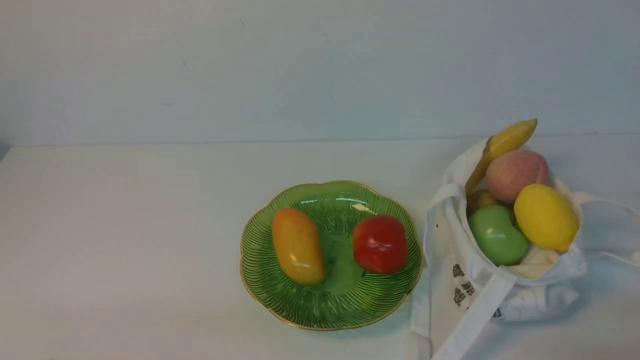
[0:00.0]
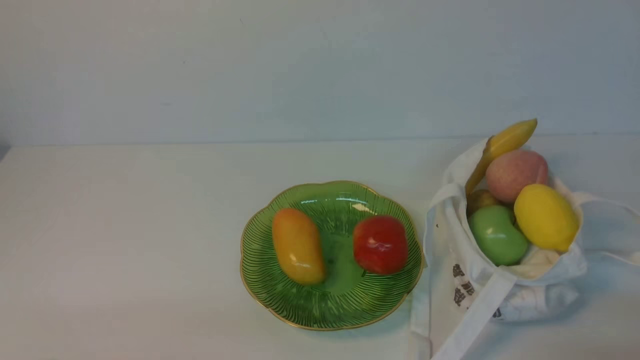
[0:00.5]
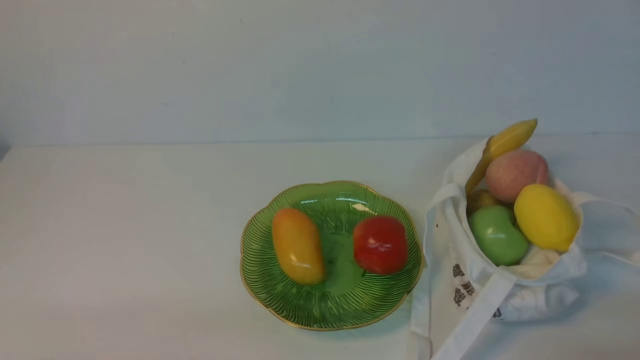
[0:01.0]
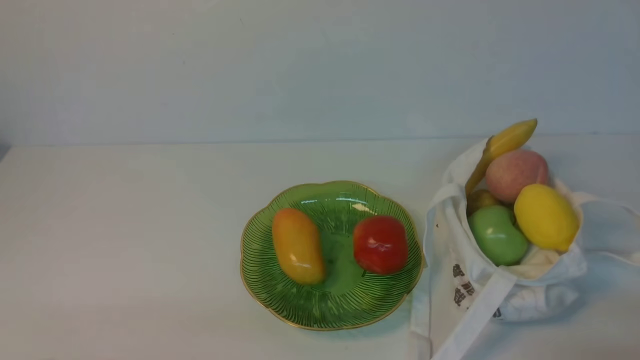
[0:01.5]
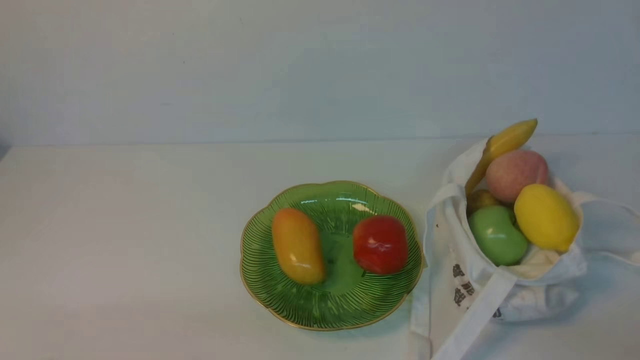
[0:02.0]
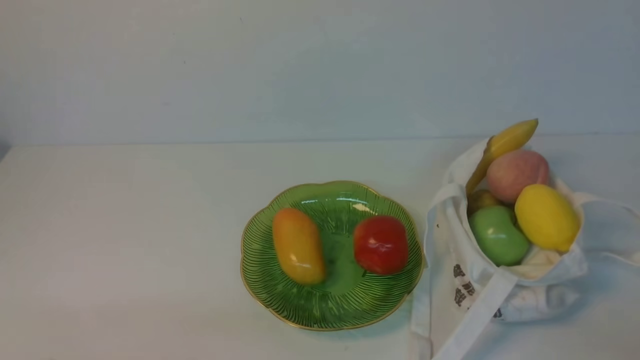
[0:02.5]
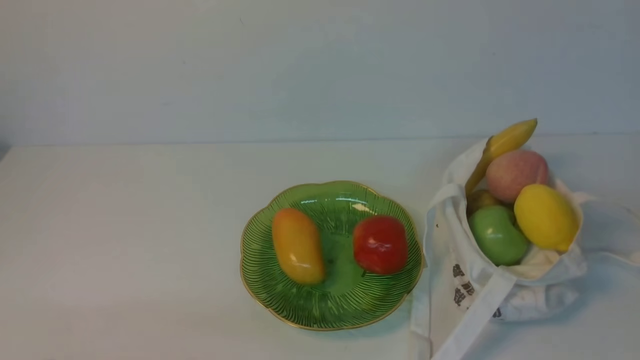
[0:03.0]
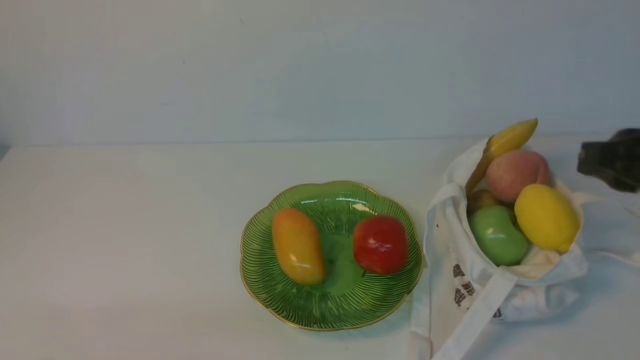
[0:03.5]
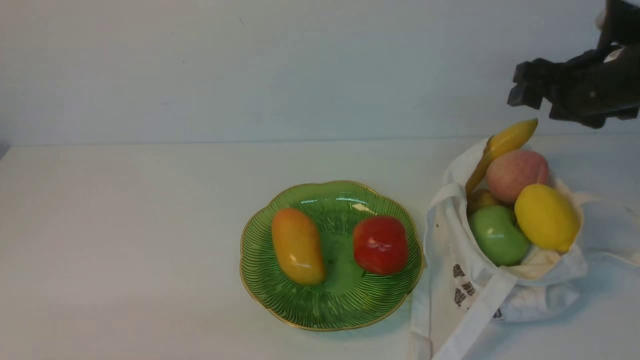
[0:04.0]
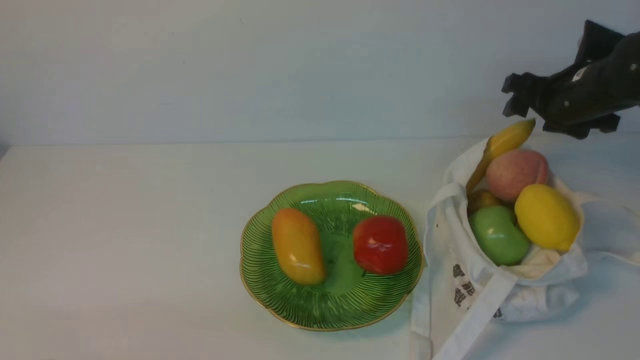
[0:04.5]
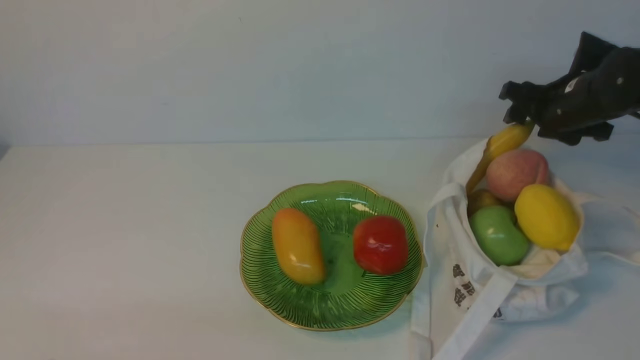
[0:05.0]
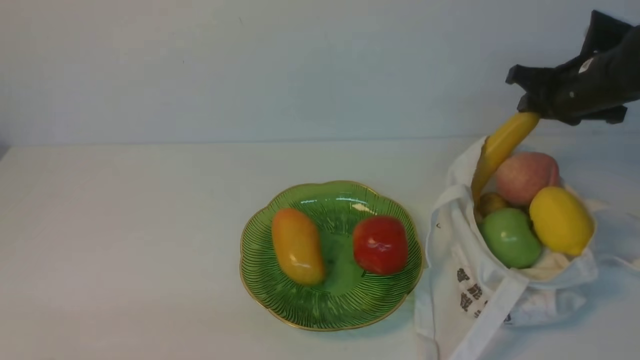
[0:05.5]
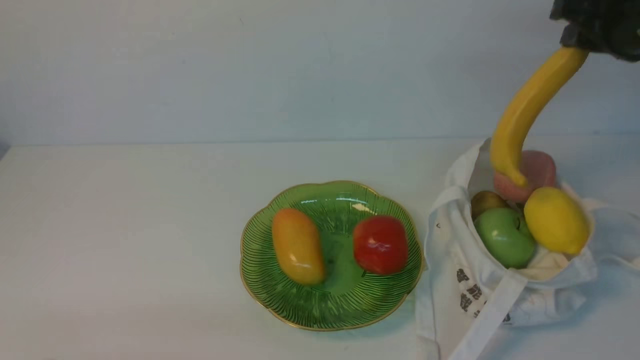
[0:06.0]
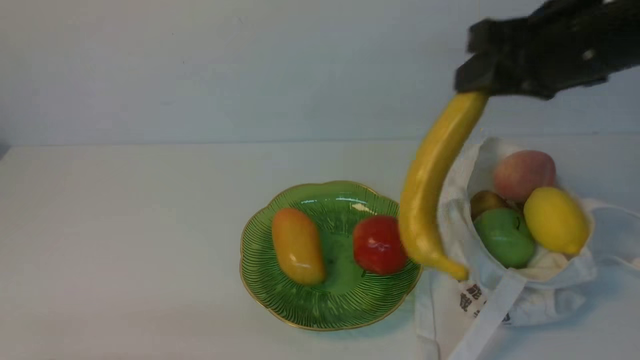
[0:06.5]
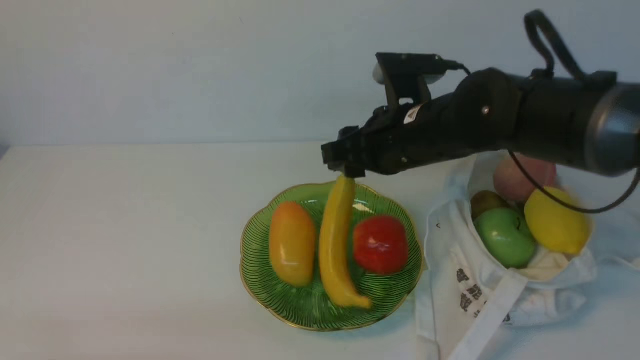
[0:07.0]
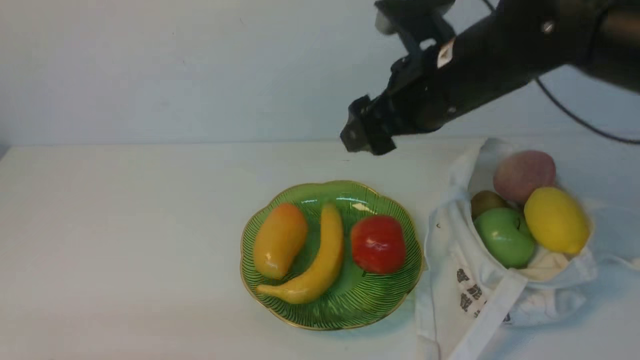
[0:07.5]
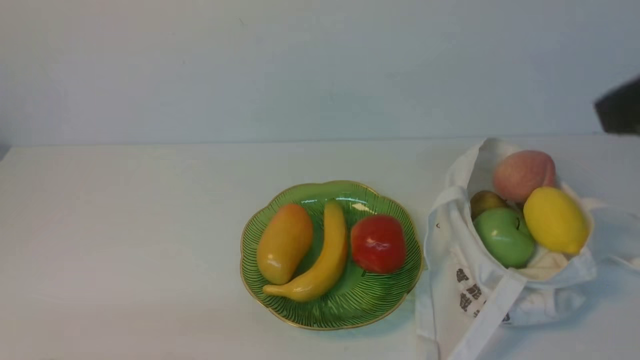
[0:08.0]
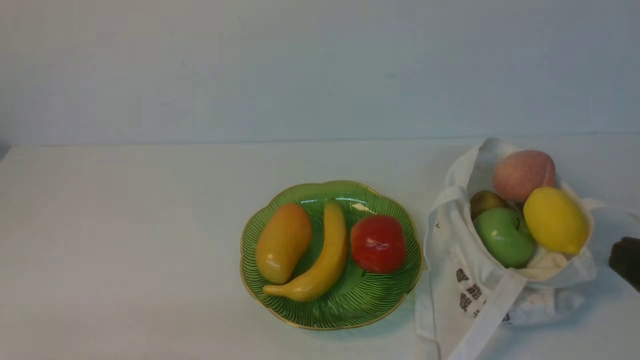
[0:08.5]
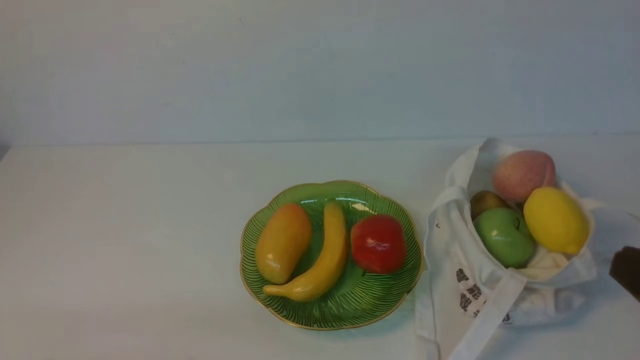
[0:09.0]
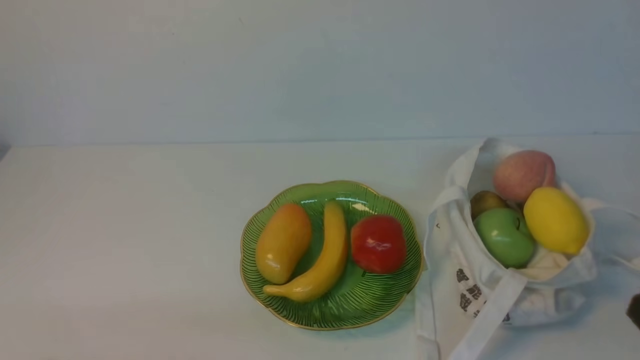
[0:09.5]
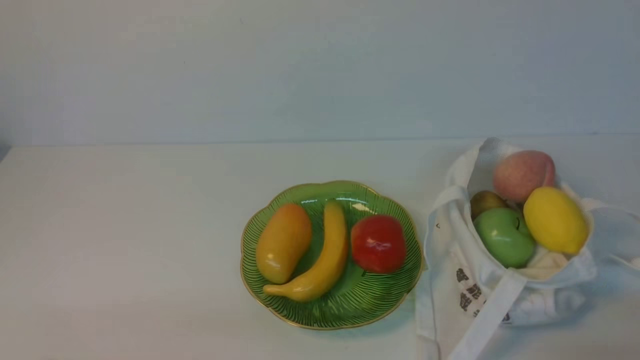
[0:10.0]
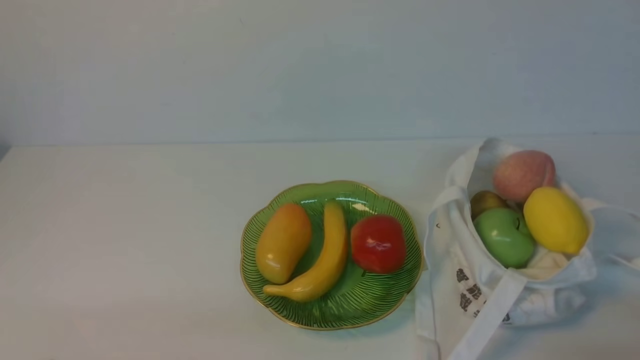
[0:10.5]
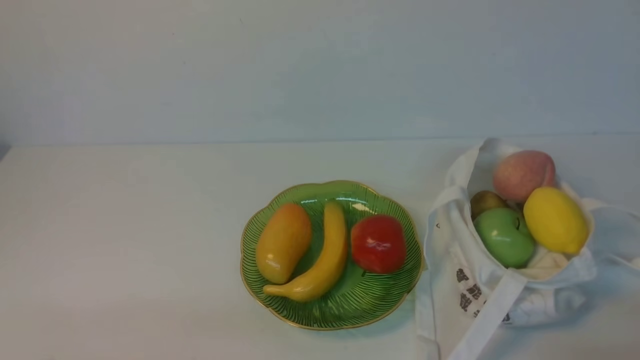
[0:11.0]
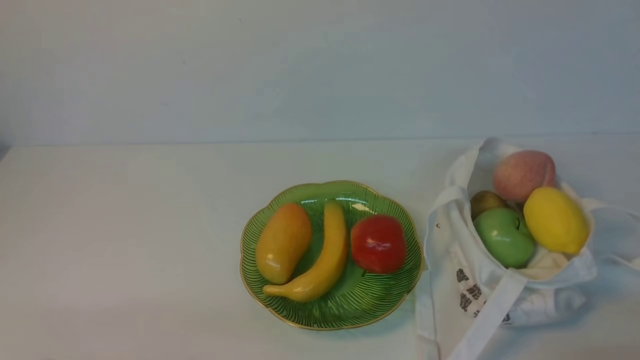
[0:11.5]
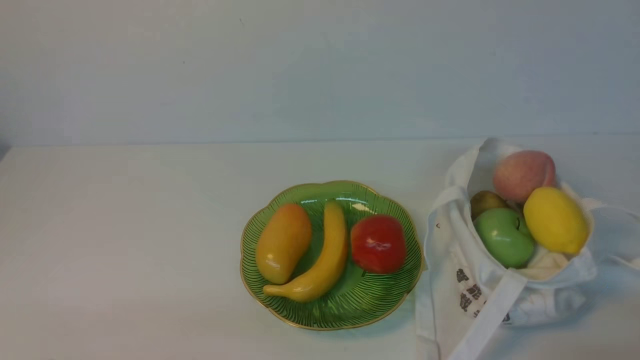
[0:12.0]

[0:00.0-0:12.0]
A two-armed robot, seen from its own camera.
Step, 0:00.0 to 0:05.5: use the right arm to grab a banana from the bag.
Step, 0:06.0 to 0:07.0: use the right arm to put the banana into the empty plate on the right.
0:02.0 to 0:04.0: The right gripper moves forward, some 35 cm, and opens its fingers.
0:04.0 to 0:06.0: The right gripper goes some 10 cm upward, and closes up.
0:06.0 to 0:08.0: The right gripper travels backward by some 20 cm, and opens and closes again.
0:08.0 to 0:10.0: The right gripper moves downward, about 25 cm.
0:10.0 to 0:12.0: The two grippers keep their place.
